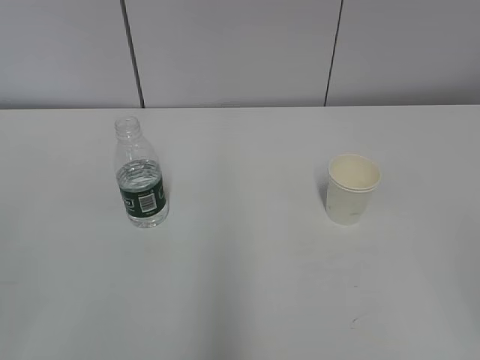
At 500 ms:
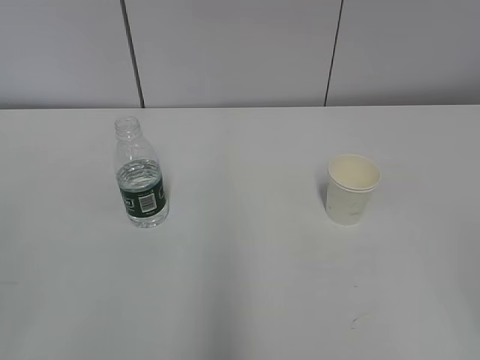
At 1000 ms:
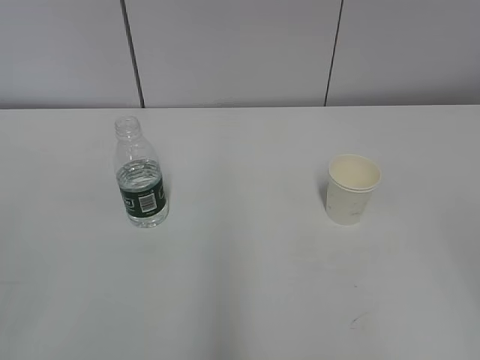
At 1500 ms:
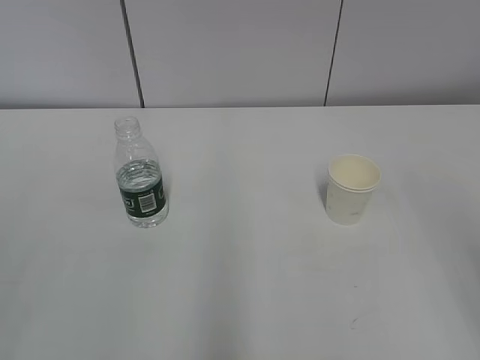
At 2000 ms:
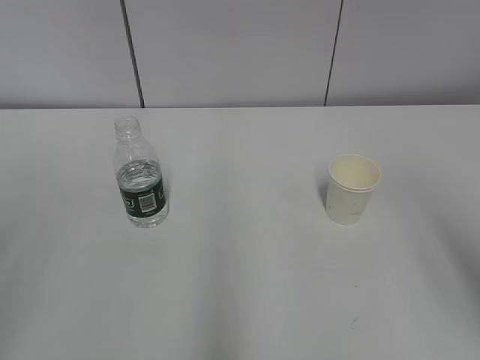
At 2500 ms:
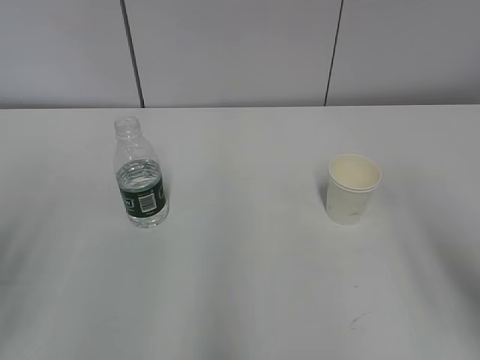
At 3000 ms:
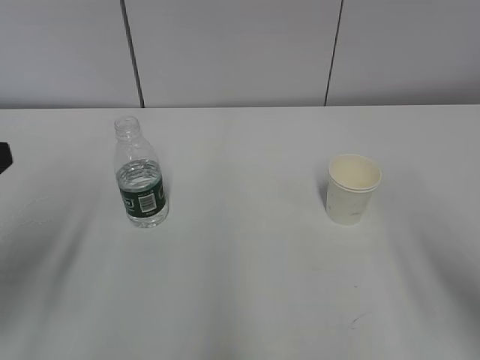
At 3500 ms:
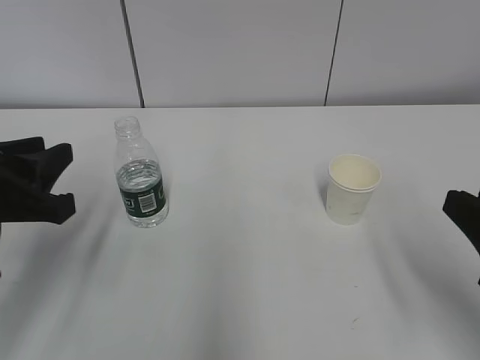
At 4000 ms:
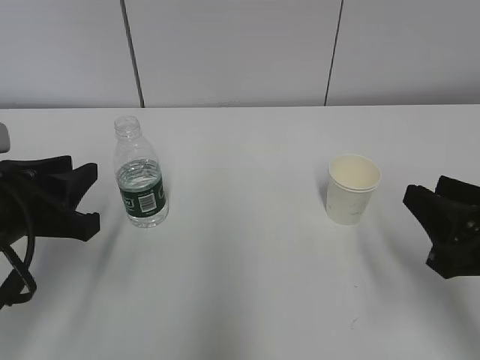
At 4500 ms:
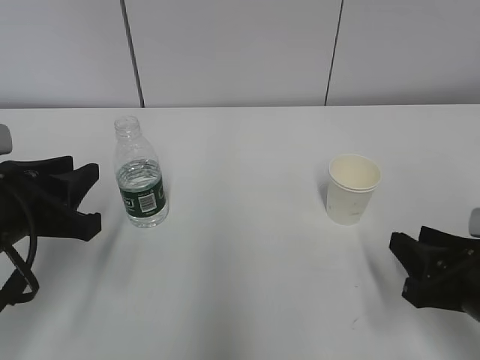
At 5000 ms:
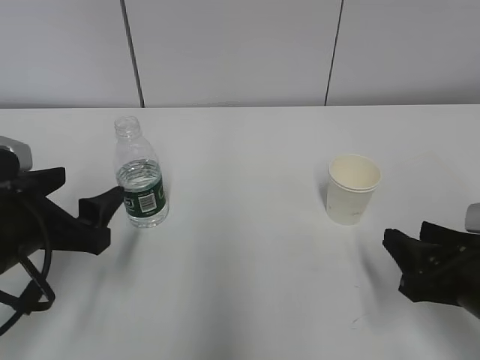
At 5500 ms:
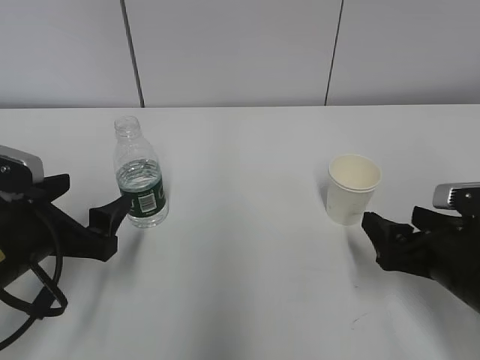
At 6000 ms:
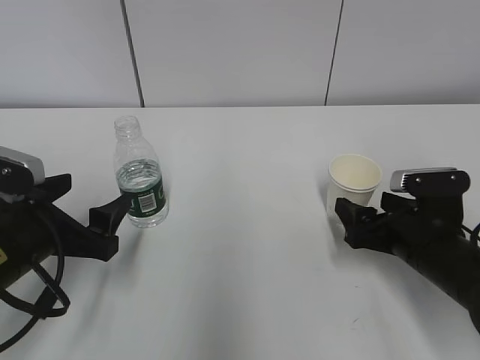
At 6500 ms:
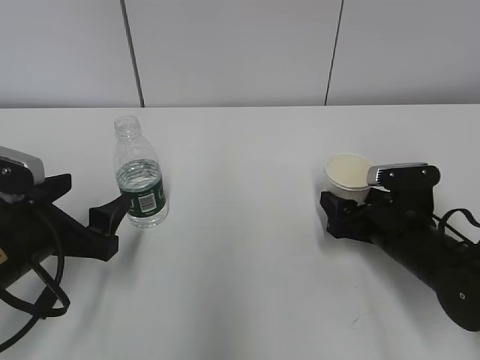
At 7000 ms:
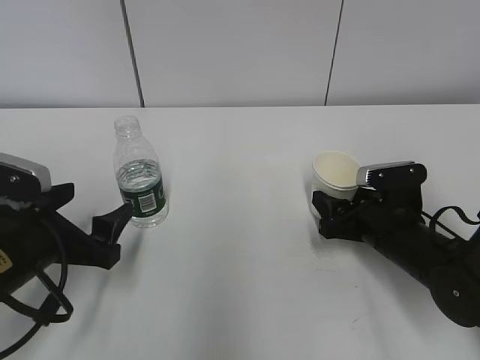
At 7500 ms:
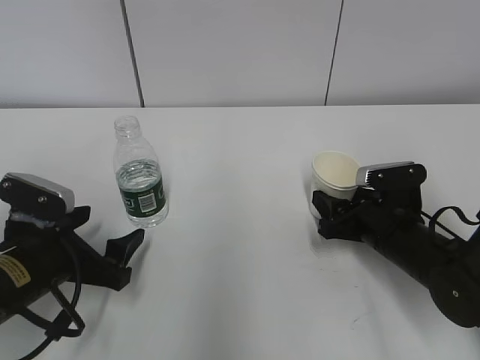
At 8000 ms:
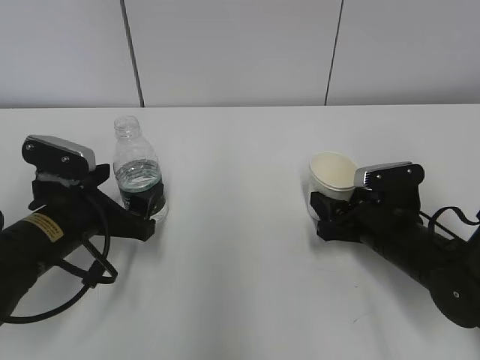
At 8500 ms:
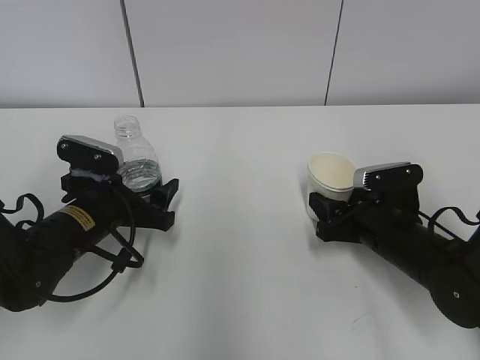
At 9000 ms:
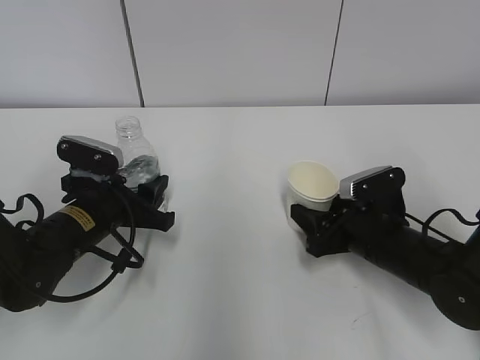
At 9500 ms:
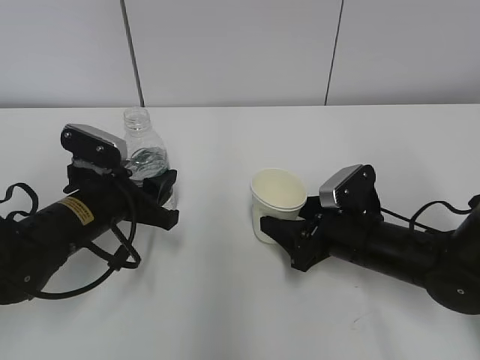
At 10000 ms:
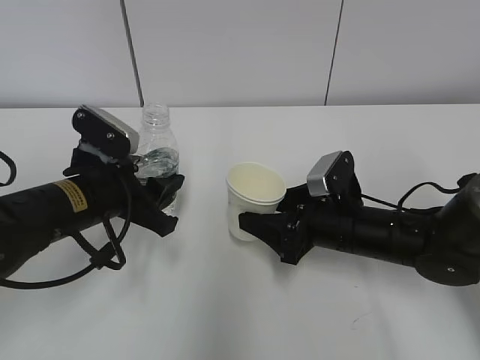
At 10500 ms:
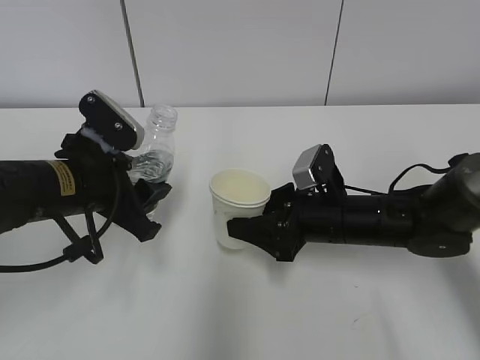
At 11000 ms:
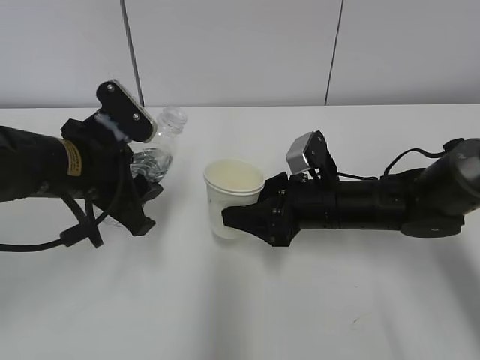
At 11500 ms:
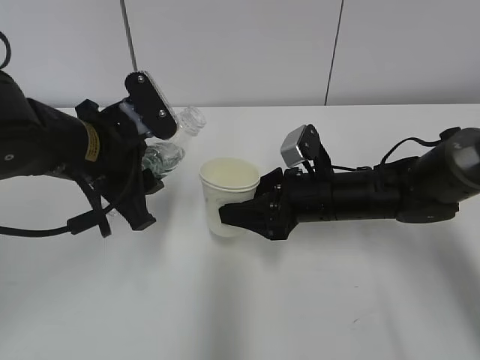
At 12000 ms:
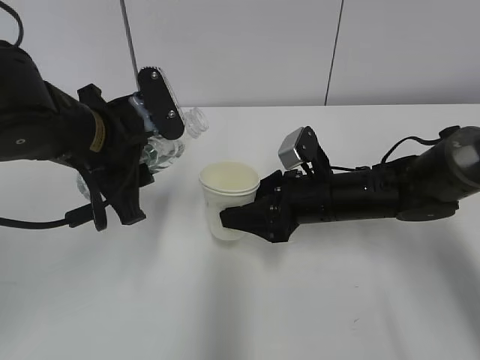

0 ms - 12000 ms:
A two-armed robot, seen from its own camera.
Step, 0 ms - 5500 ms: Grab the paper cup with the right hand.
Step, 6000 ms - 7000 ms: Grab the water bottle with the left hand.
2000 ms - 4000 ms: The right gripper moves downward and forward, roughly 15 cm. The left gripper heads forward, downward and to the right, covering roughly 25 cm.
4000 ms - 6000 ms: The left gripper opens up. The right gripper shifts some 15 cm forward and downward, and opens its fingers.
6000 ms - 8000 ms: The right gripper closes its fingers; the left gripper moves about 5 cm.
8000 ms - 10000 ms: The right gripper heads to the left, covering approximately 5 cm; the left gripper closes.
10000 ms - 12000 ms: The left gripper goes roughly 10 cm upward.

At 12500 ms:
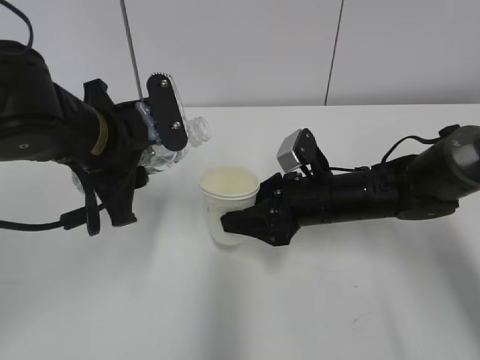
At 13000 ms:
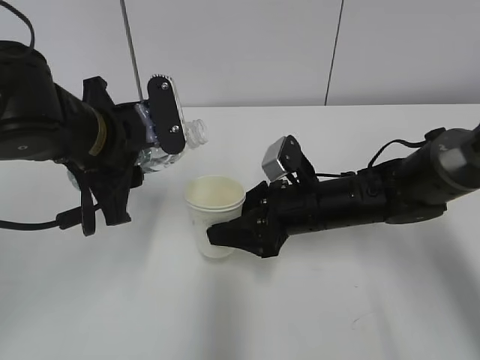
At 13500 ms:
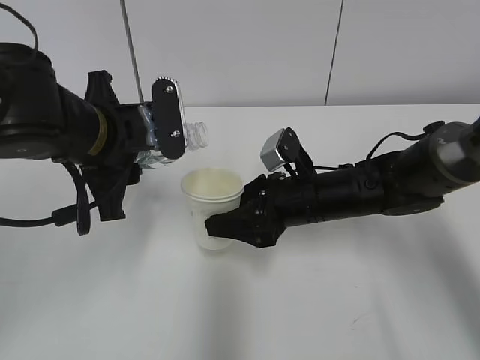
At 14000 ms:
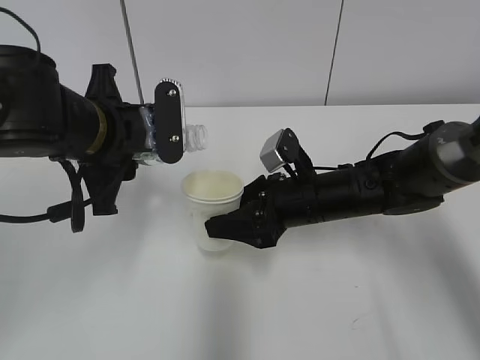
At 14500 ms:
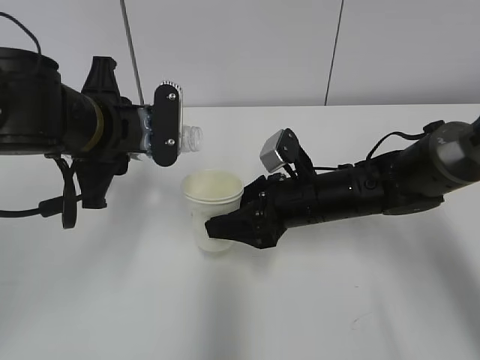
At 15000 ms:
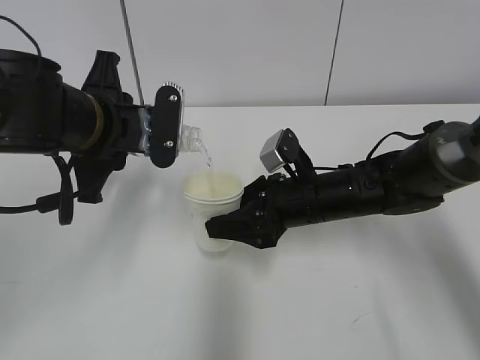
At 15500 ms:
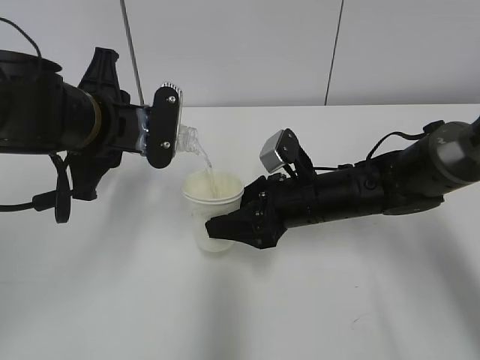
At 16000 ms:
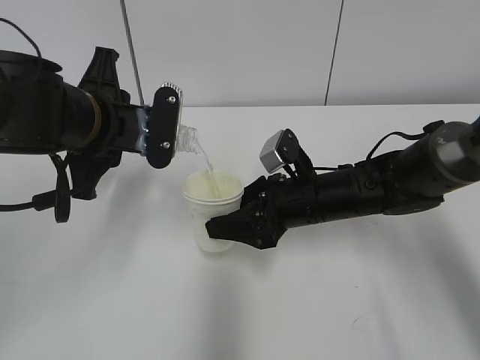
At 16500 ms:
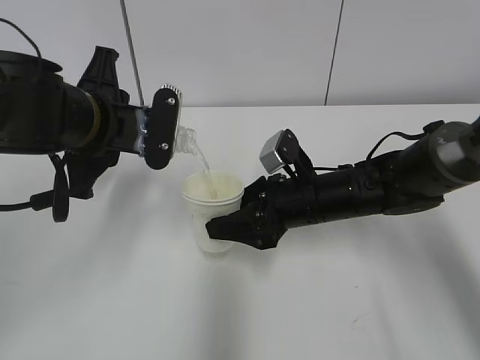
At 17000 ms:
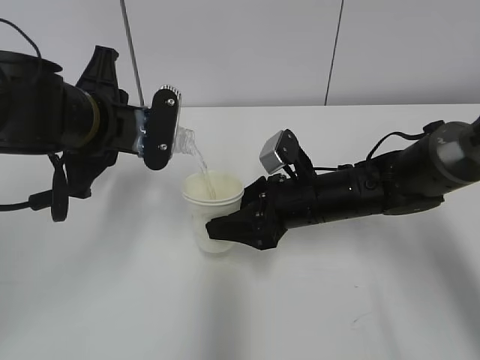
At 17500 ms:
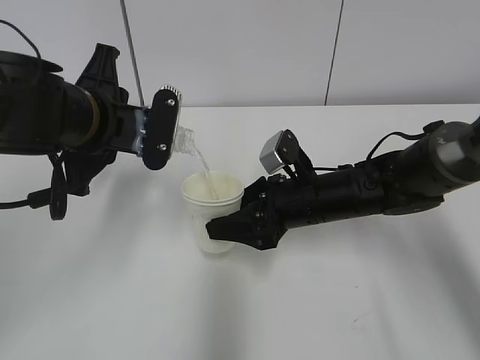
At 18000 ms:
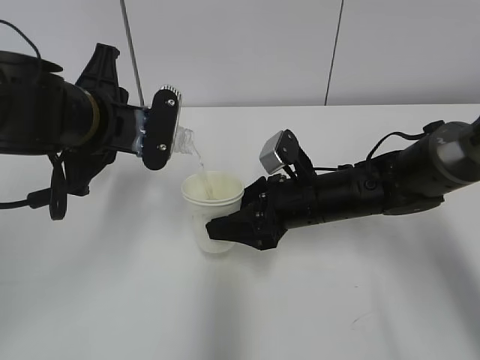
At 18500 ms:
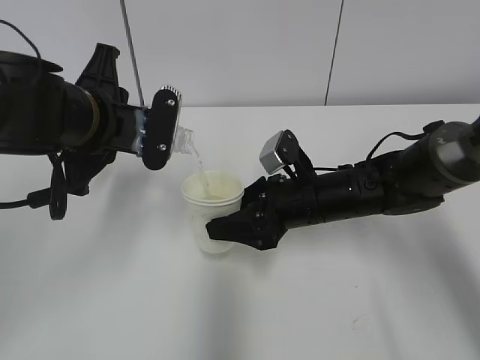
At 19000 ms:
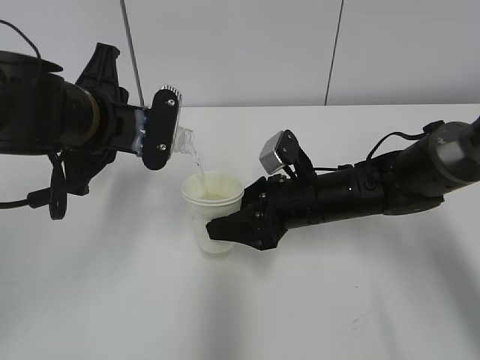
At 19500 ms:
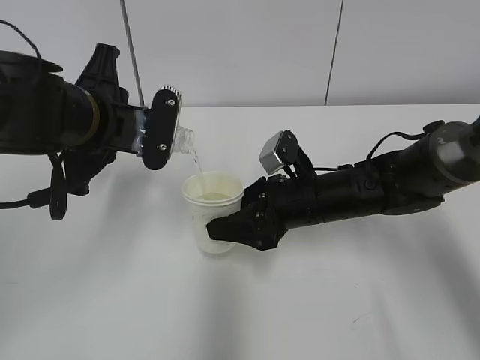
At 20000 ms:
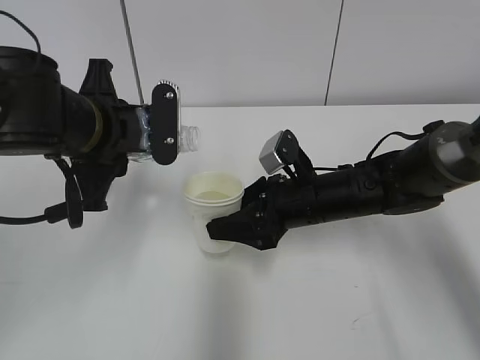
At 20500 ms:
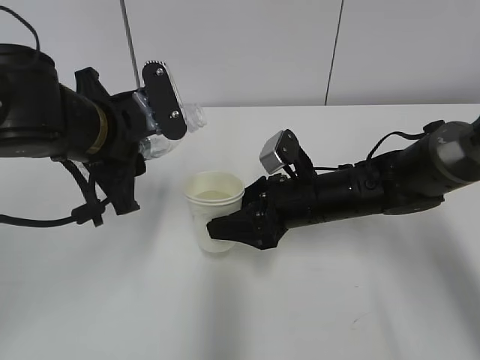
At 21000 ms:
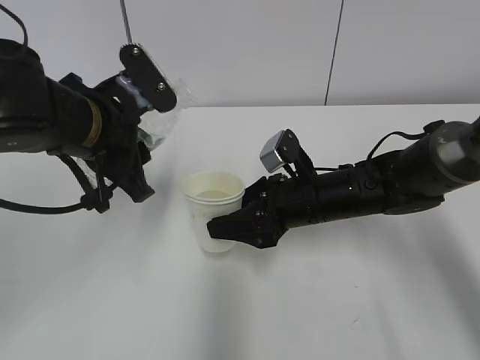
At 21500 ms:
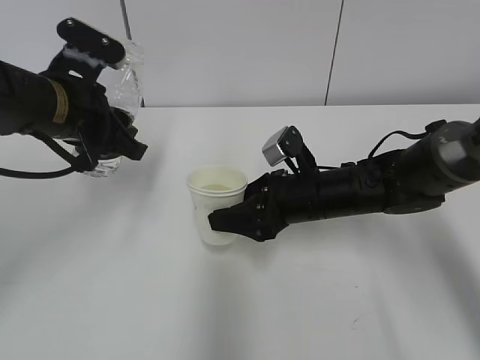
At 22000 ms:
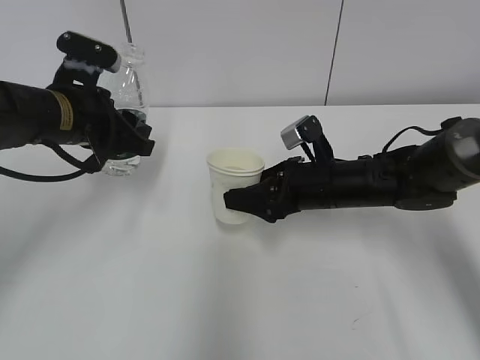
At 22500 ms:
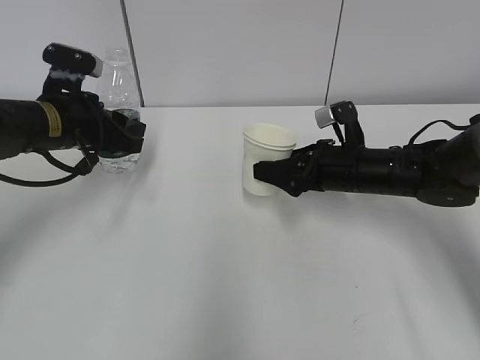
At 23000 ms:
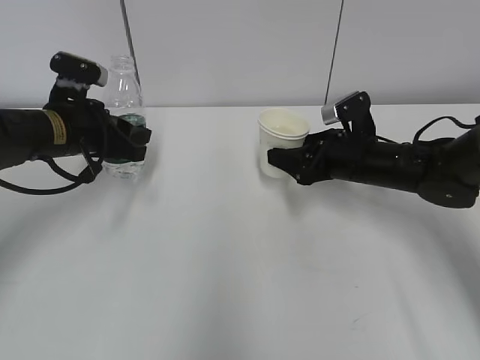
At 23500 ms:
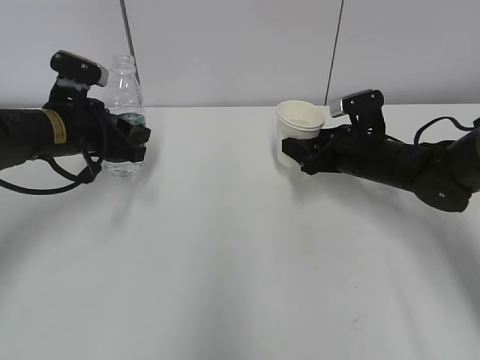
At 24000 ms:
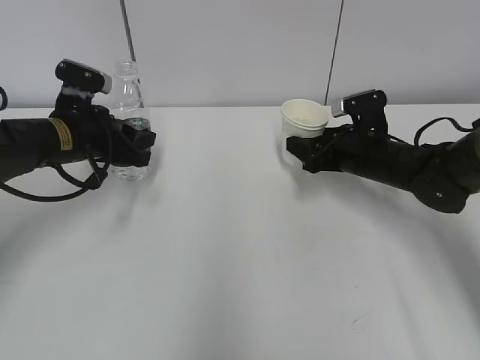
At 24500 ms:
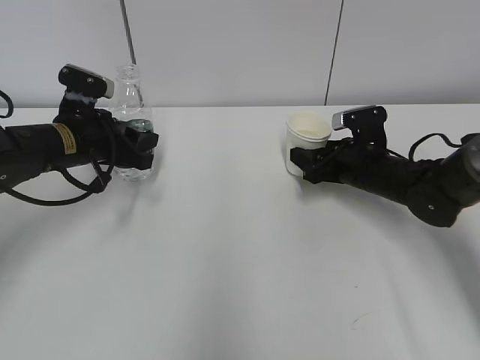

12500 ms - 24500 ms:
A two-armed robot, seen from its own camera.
Step, 12500 ms - 16500 ms: Fill water with the right hand.
Step, 12500 ms - 16500 ms: Pour water with the left hand.
Step, 17000 ms - 18000 ms: Collect water with the left hand.
Step, 18500 ms - 22000 ms: Place the paper cup with the right hand.
Step, 22500 ms - 23000 ms: Place the water bottle with the left hand.
14500 ms - 16500 ms: There are only small adjustments of the grippers.
16500 ms - 18500 ms: Both grippers stay put.
20500 ms - 22500 ms: The right gripper heads to the right, covering approximately 5 cm. The left gripper is displaced forward and to the left by roughly 10 cm.
22500 ms - 24500 ms: The right gripper changes place by approximately 5 cm.

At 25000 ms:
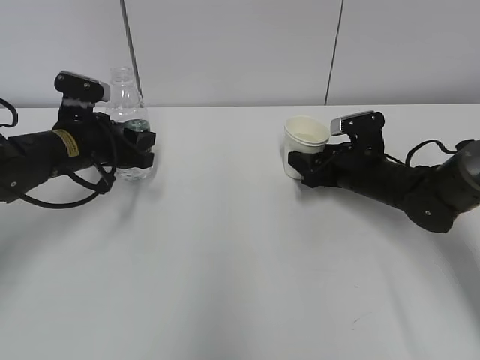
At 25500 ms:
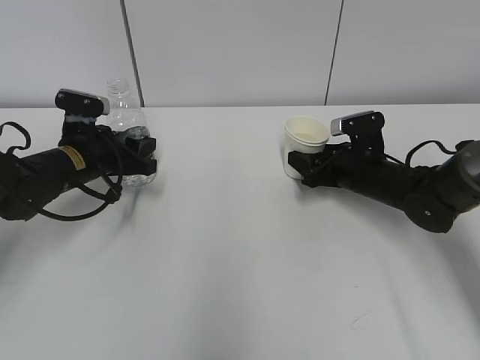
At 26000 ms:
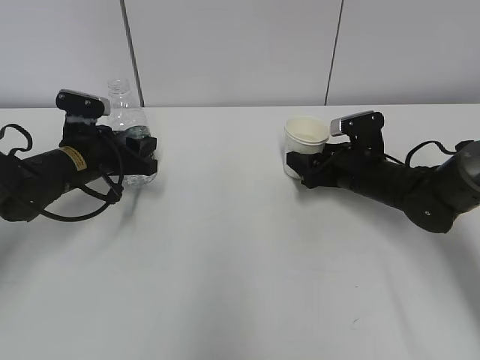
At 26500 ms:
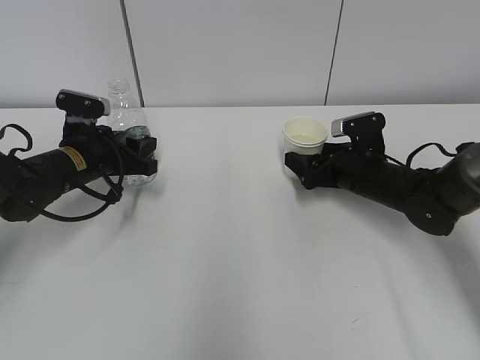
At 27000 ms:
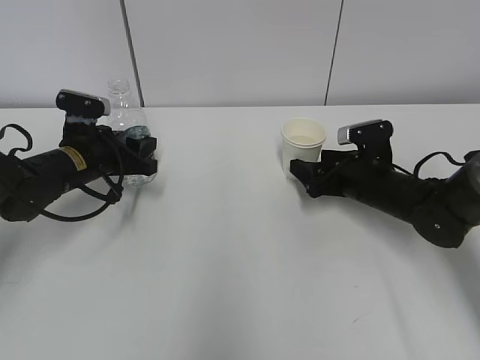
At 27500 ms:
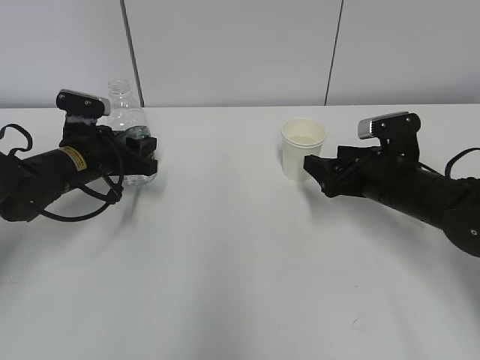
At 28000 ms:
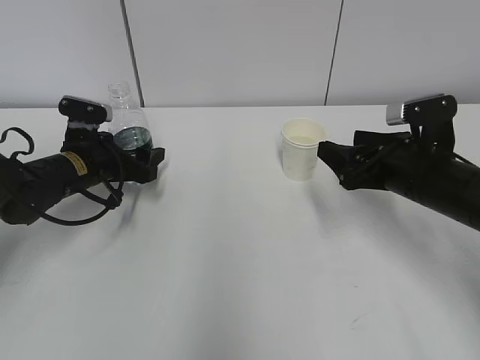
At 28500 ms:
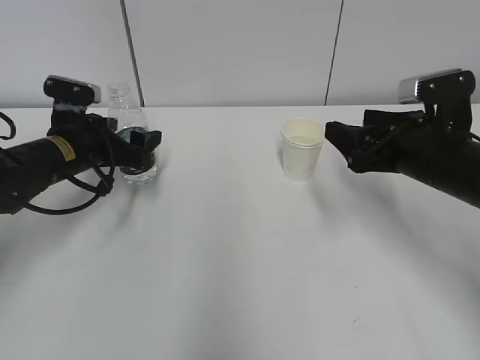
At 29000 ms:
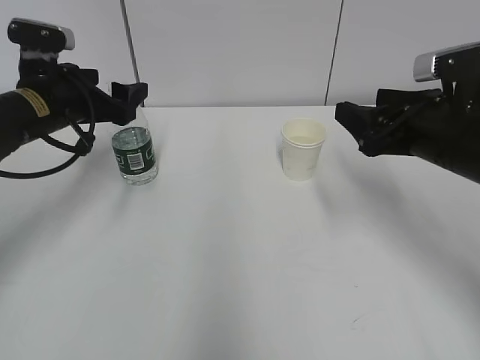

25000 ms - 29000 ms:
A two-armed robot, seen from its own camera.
25000 ms - 27000 ms: The right gripper opens its fingers.
27000 ms - 29000 ms: The right gripper is displaced upward and backward by some 15 cm, while the left gripper travels upward by some 10 cm, and opens its fingers.
